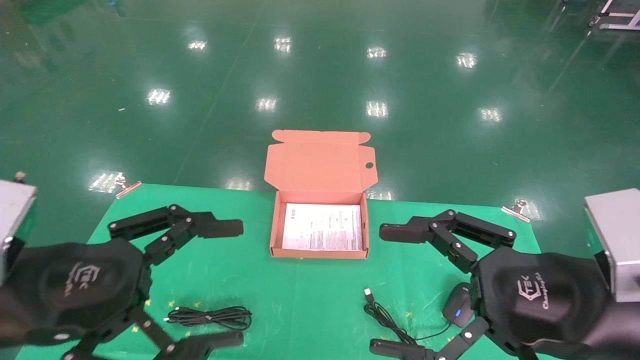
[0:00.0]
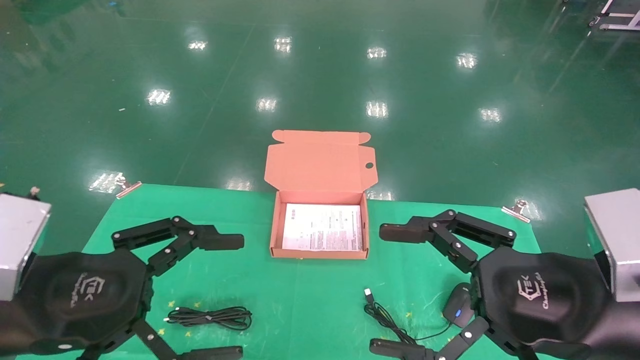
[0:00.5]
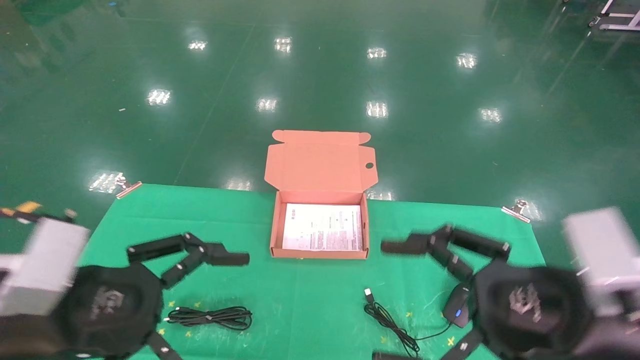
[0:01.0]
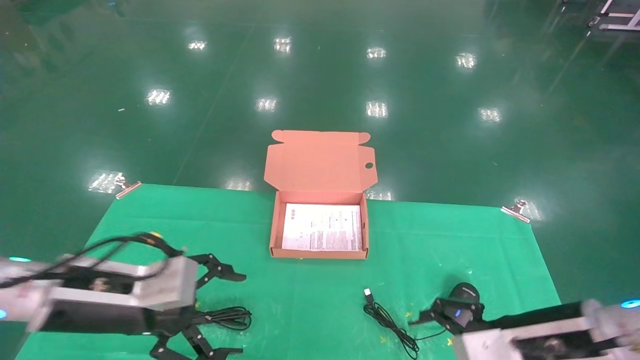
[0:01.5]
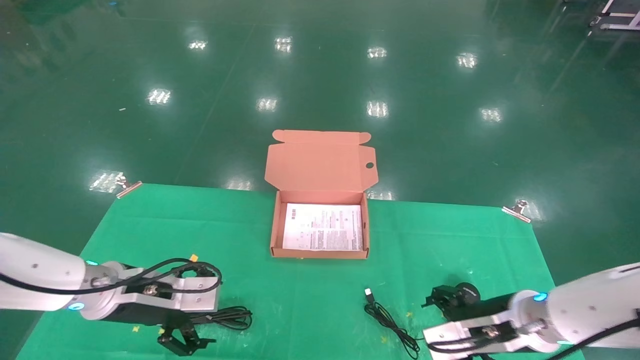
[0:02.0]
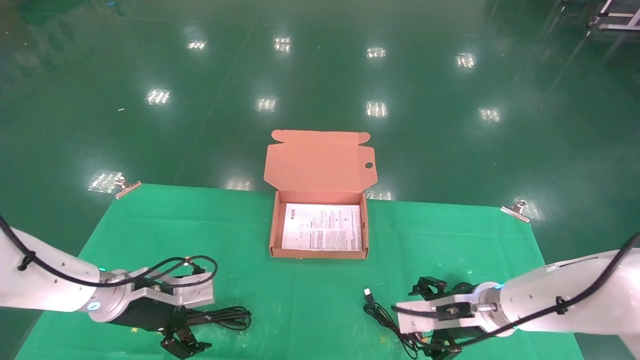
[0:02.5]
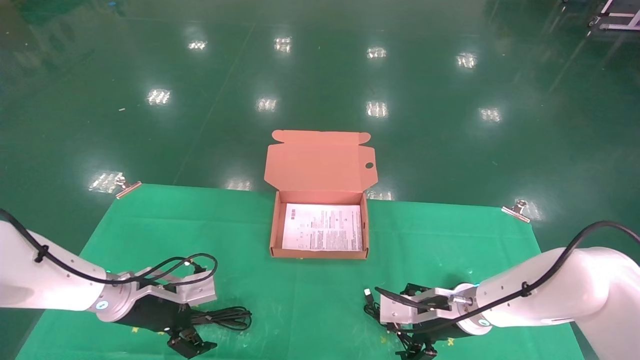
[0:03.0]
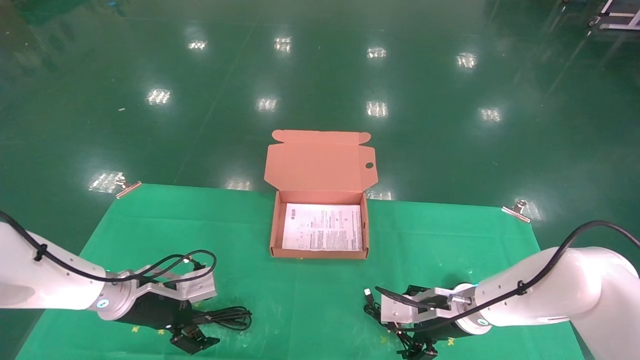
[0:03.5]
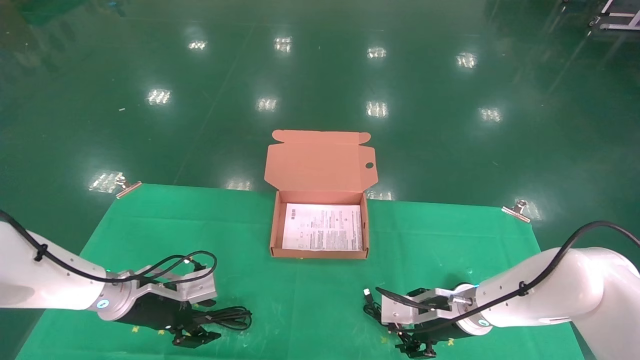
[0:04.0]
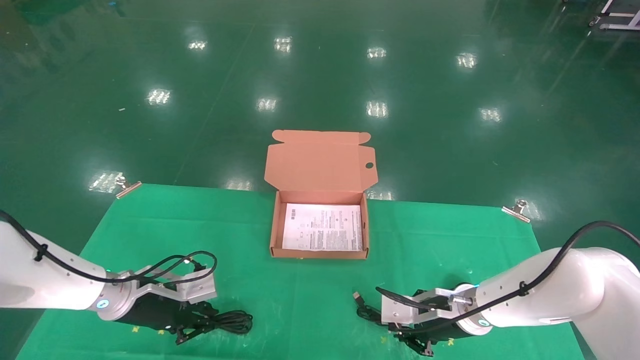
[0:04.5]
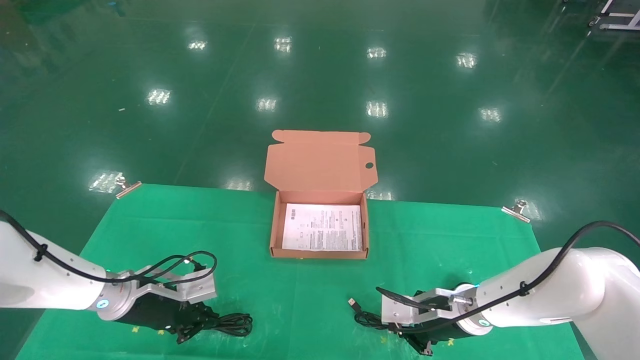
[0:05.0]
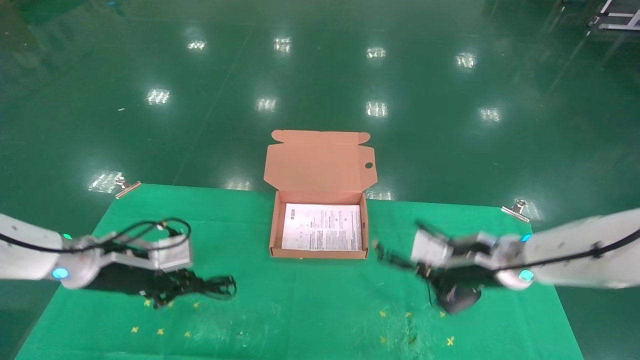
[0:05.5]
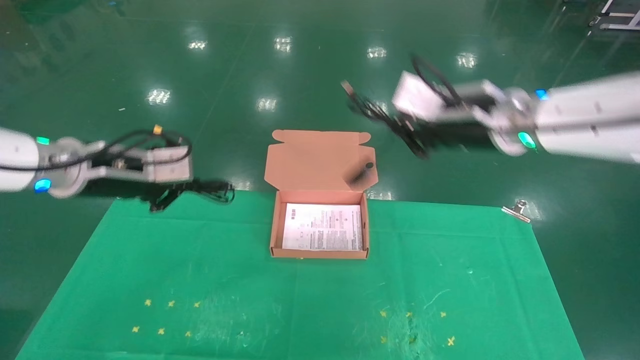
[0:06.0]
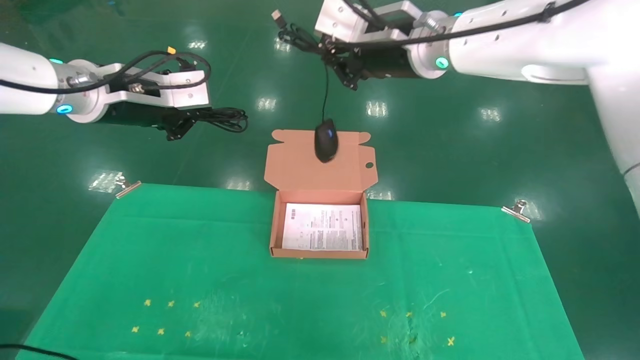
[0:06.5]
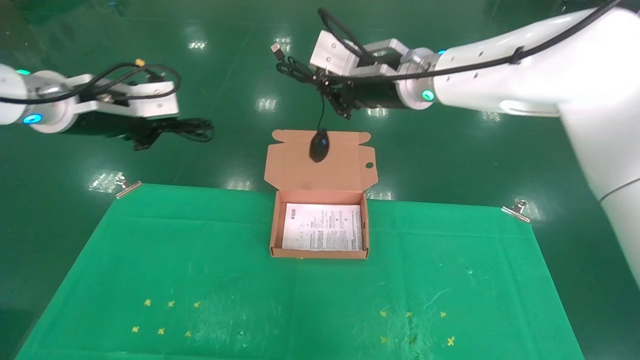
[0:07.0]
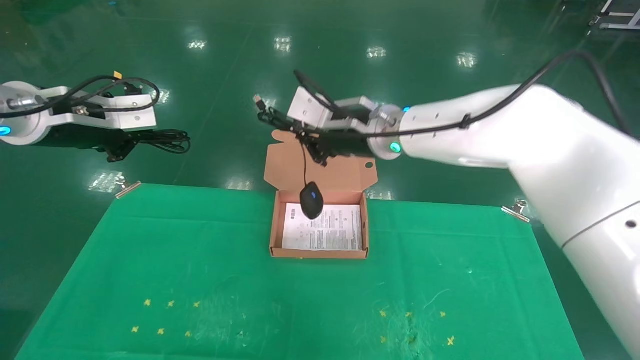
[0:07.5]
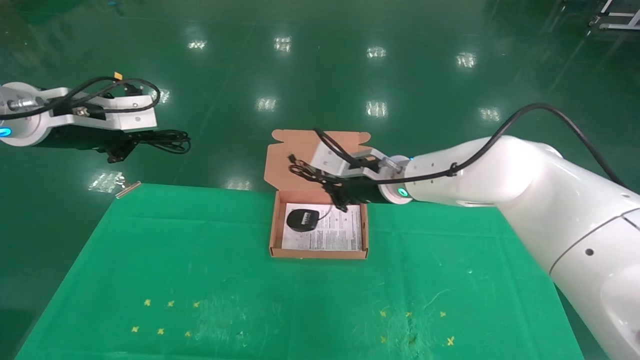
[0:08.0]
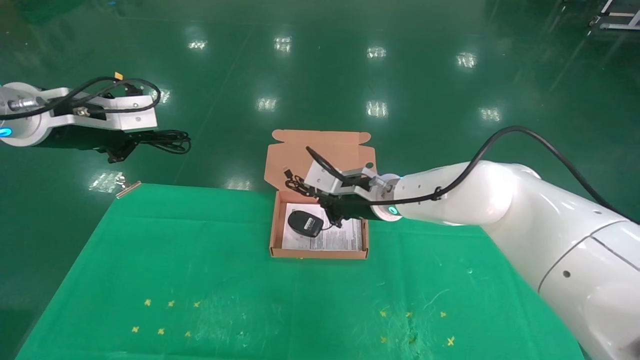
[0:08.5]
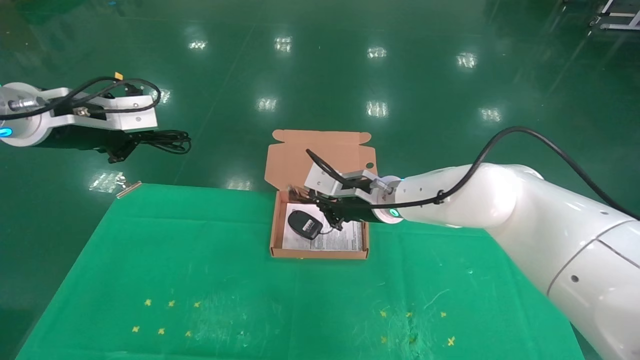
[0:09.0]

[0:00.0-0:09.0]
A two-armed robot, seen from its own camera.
Task of the whole recording: grasp data cable left put into box grasp mouse right put into box.
Step, 0:01.5 to 0:05.5: Grab and pick up both the mouse and power cord from the accessory packaging area at the same time.
0:00.0 to 0:02.0: Both grippers move forward and downward, approximately 20 cm.
0:02.0 to 0:04.5: The left gripper goes approximately 10 cm forward and downward, and closes up. Meanwhile the right gripper moves forward, roughly 5 cm, and closes its fingers.
0:04.5 to 0:07.0: Both grippers travel together upward, approximately 30 cm.
0:07.0 to 0:09.0: The right gripper travels downward by approximately 15 cm.

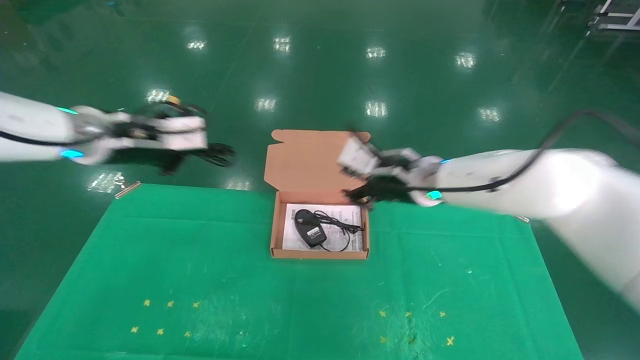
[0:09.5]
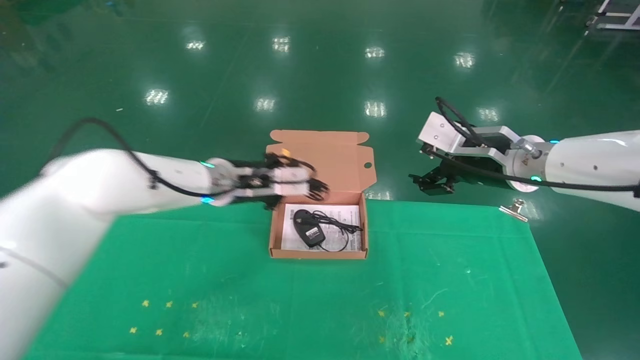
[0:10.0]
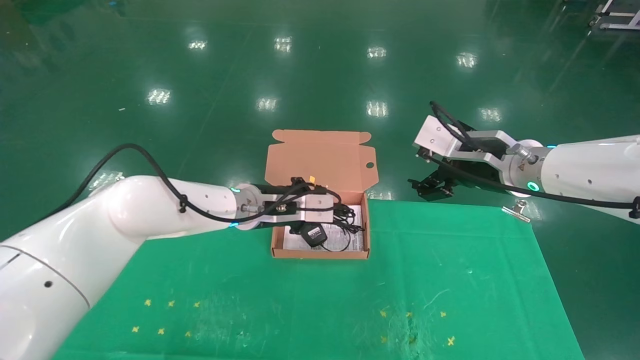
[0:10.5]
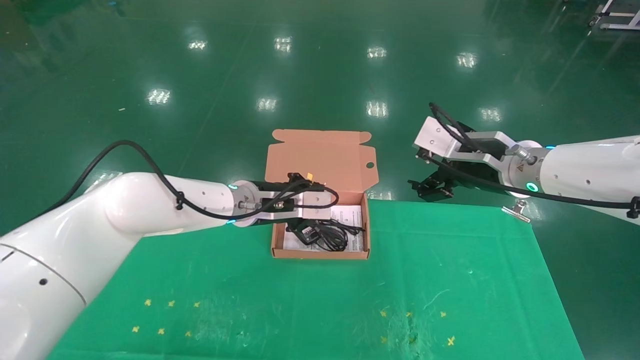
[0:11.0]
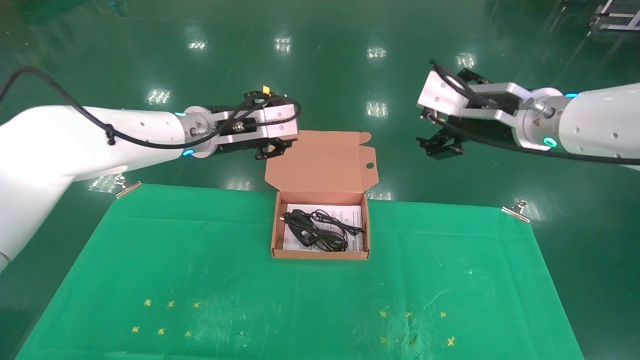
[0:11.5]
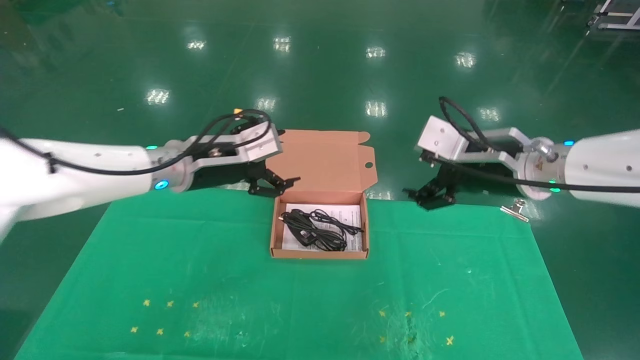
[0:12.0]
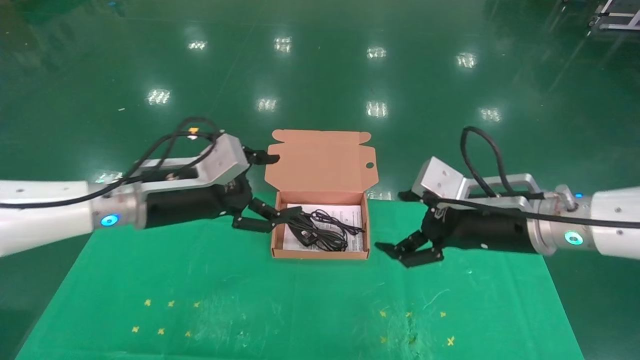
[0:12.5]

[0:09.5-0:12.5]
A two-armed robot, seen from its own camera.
Task of the whole recording: grasp data cable left put into box grasp mouse right put into box.
0:09.5 to 0:11.0: The left gripper goes about 20 cm to the right and downward. Meanwhile the right gripper moves to the right and backward, roughly 10 cm, and opens its fingers.
0:11.0 to 0:12.5: The left gripper is displaced to the left and backward by some 15 cm, and opens up; the right gripper moves backward, some 5 cm.
